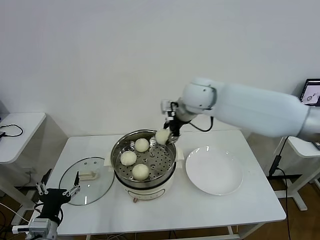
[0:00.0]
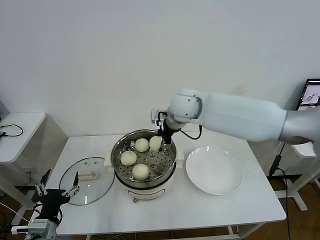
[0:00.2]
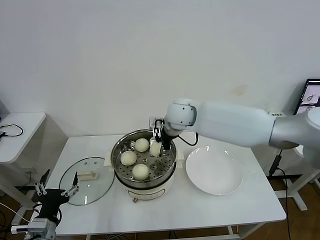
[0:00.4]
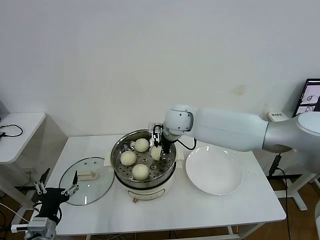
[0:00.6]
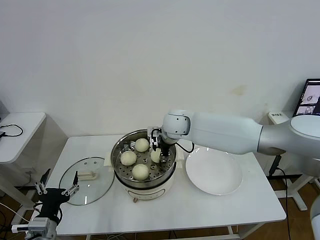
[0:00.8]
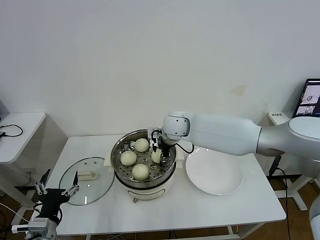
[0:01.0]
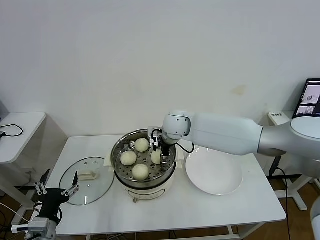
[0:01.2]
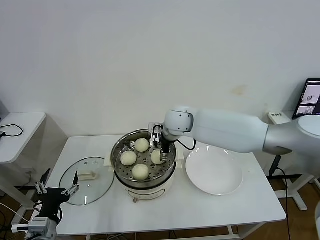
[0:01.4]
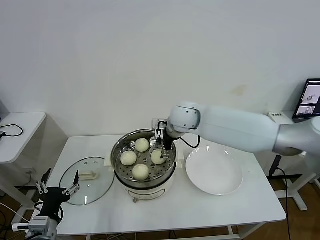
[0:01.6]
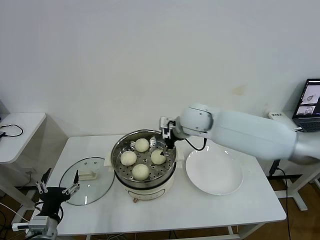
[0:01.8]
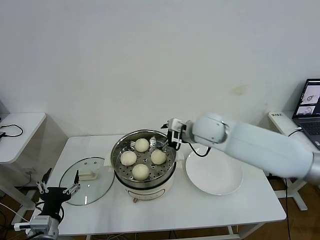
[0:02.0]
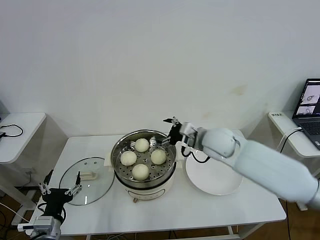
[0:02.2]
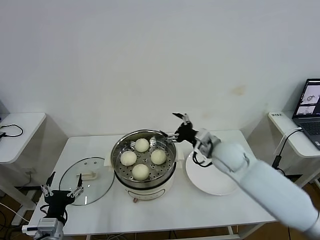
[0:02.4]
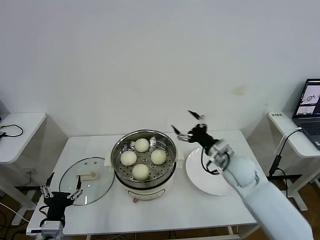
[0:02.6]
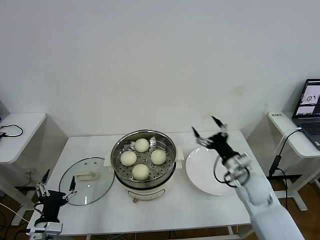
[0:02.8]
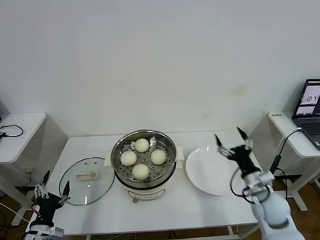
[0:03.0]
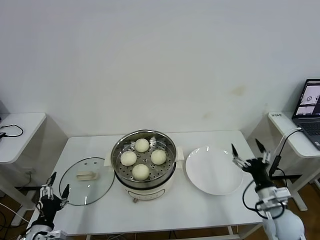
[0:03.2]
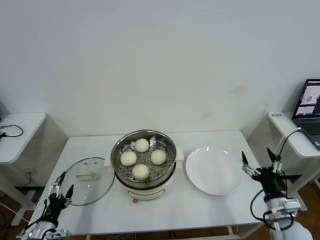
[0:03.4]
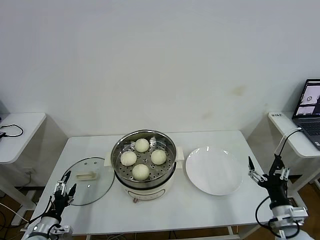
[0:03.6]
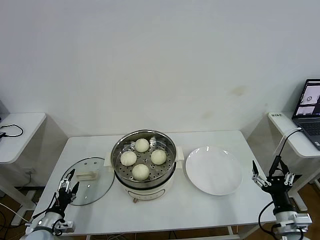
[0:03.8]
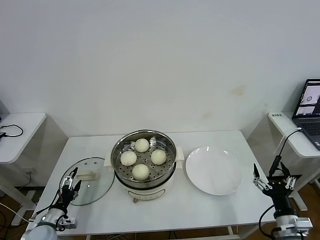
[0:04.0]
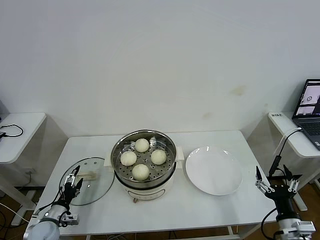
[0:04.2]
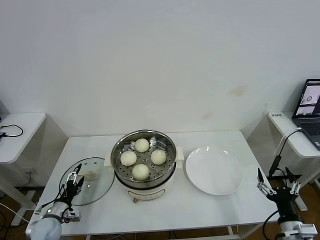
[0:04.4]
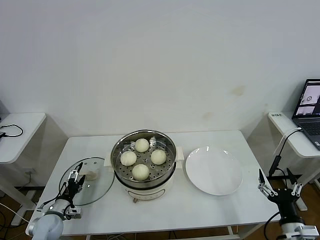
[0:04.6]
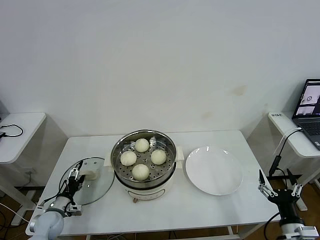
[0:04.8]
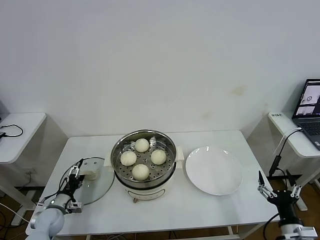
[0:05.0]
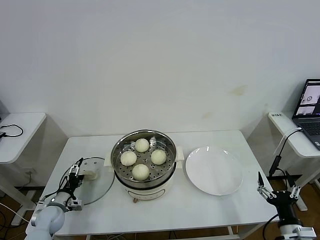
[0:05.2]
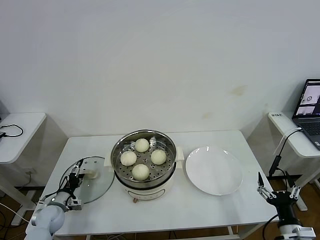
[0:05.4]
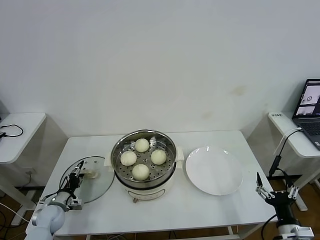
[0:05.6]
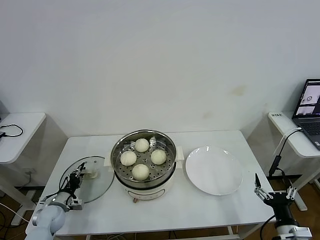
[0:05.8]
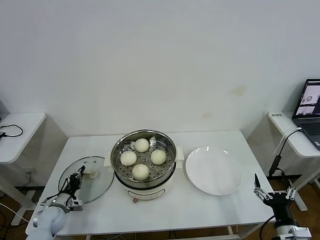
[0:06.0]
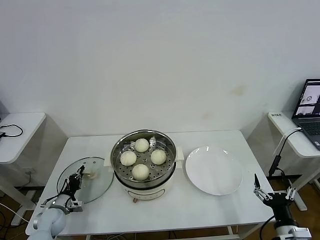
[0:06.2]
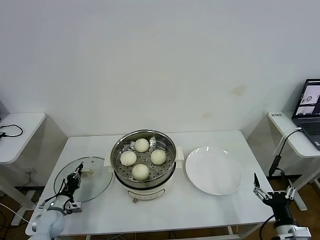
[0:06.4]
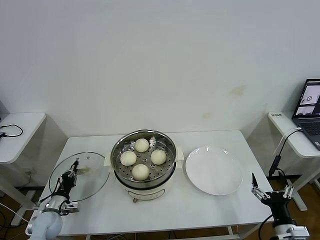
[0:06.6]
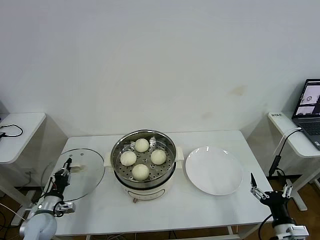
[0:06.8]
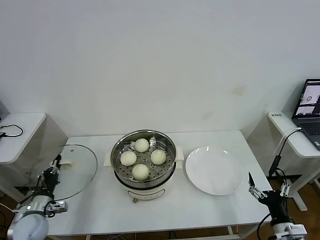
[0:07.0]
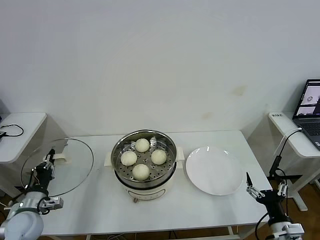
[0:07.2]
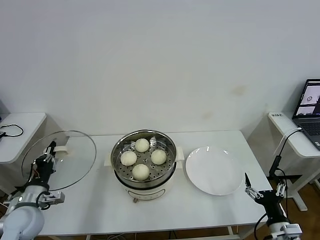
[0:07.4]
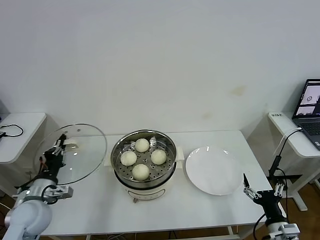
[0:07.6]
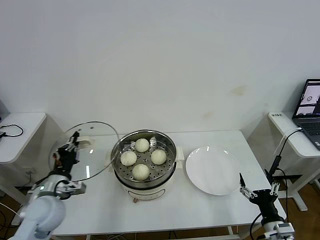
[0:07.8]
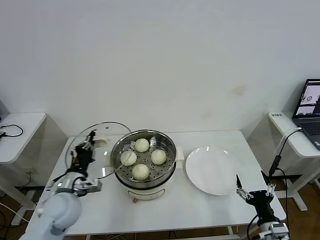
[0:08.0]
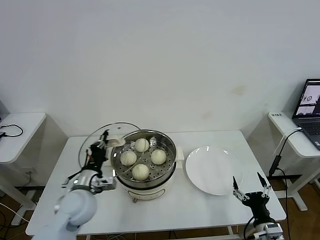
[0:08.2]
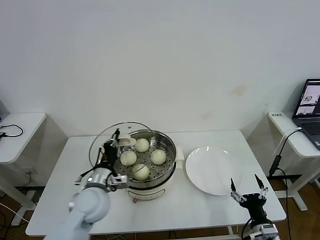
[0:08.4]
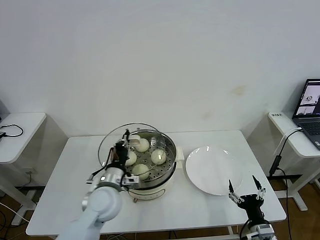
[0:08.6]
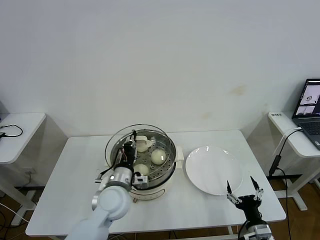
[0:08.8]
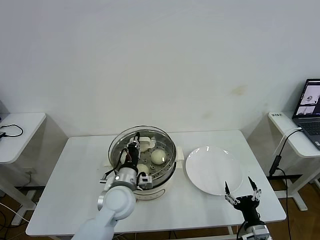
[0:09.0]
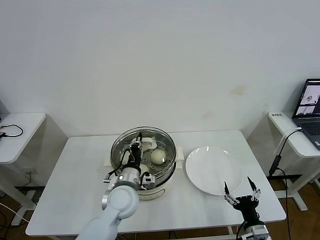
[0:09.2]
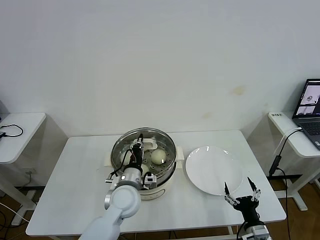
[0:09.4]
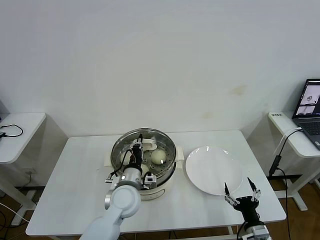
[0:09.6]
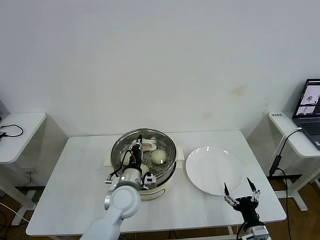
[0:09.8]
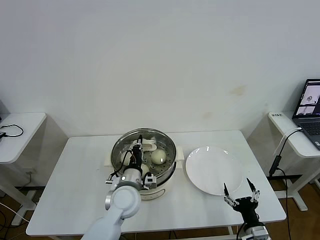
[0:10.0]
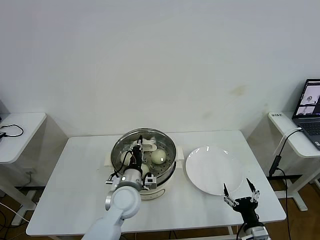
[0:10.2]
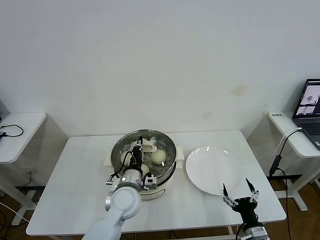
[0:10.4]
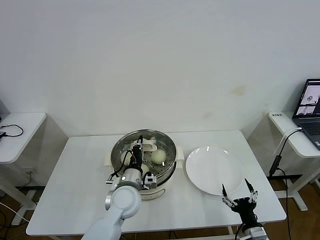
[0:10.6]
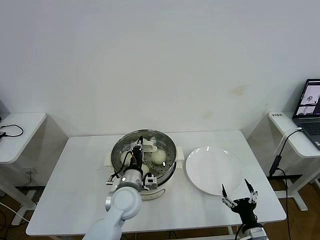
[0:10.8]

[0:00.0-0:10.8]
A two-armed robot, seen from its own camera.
Task of the whole recording: take steamed baozi put them in steamer then cover it.
Step, 0:01.4 to 0:06.0: Grasp the pot lid with left gripper.
0:00.0 to 0:01.6: The right gripper travels downward by roughly 5 cm, and opens up.
0:01.6 to 0:03.0: The left gripper moves downward, about 5 cm. The right gripper goes about 35 cm to the right, backward and downward.
0:03.0 to 0:04.6: The left gripper shifts approximately 15 cm forward and downward; the right gripper travels backward by some 15 cm.
0:04.6 to 0:06.2: The left gripper closes.
0:06.2 to 0:07.8: The left gripper heads upward and to the right, covering roughly 20 cm.
0:07.8 to 0:09.2: The right gripper changes place by roughly 5 cm. The left gripper goes about 20 cm to the right.
0:09.2 to 0:10.8: The grippers stay close to where they were, moving slightly.

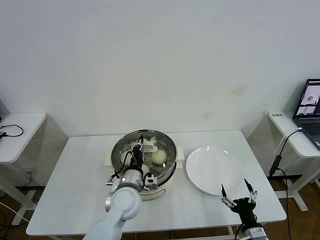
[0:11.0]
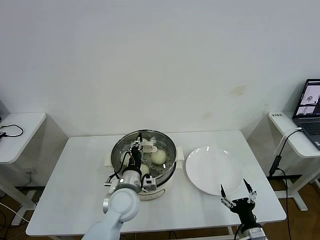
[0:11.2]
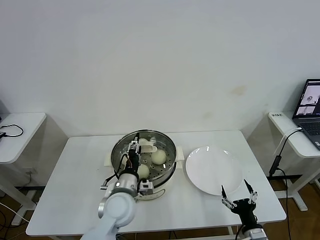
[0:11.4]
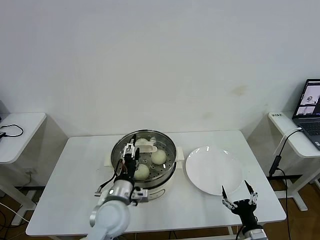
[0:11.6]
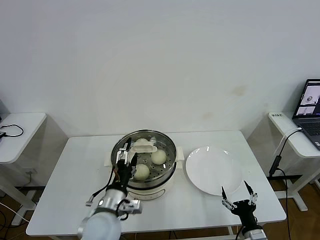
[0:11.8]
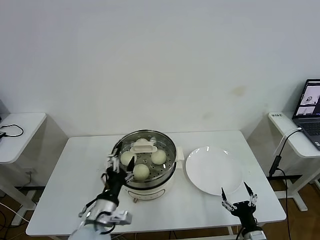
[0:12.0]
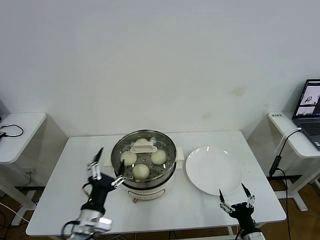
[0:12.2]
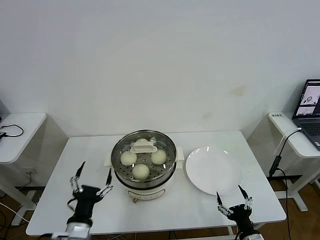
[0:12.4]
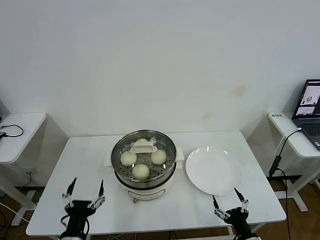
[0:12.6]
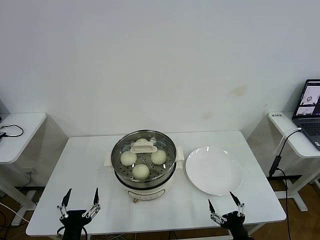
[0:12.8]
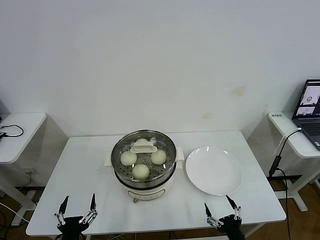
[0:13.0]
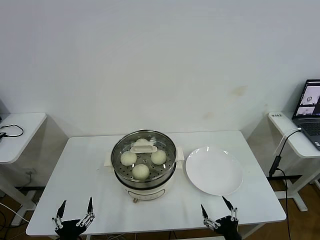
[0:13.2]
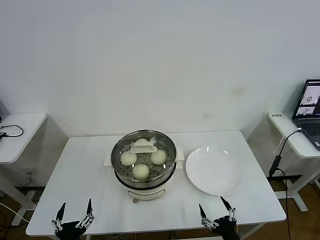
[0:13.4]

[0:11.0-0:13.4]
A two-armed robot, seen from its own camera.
Task of the whole recording: take steamed baozi put them in steamer then cover it.
0:11.0 to 0:12.2: The left gripper goes approximately 15 cm backward and to the left, and opens its fingers.
0:12.2 to 0:13.4: The right gripper ends up about 5 cm from where it was. The left gripper heads backward, downward and to the left, covering about 15 cm.
